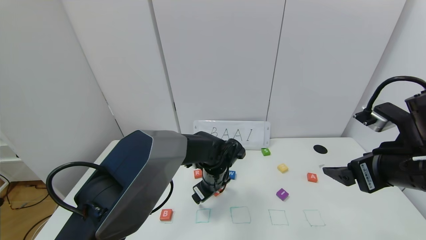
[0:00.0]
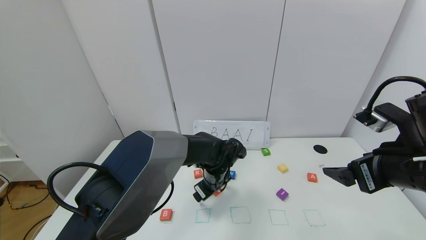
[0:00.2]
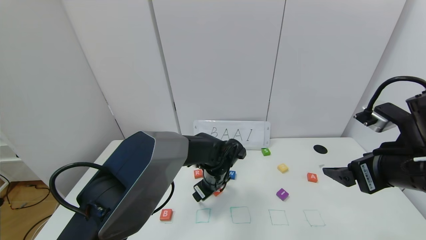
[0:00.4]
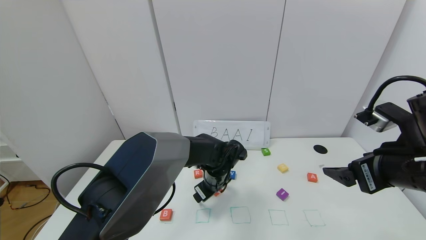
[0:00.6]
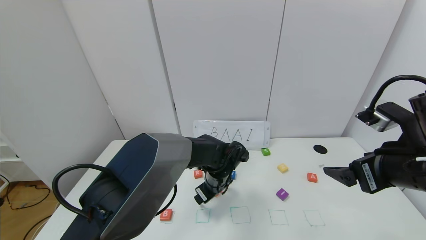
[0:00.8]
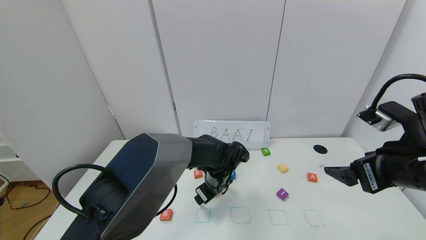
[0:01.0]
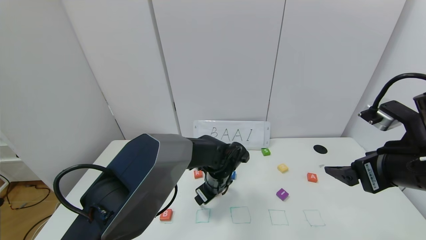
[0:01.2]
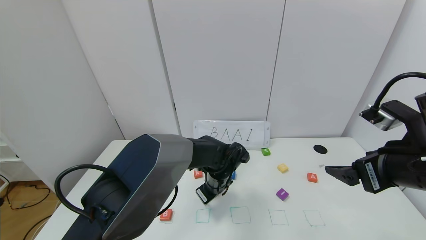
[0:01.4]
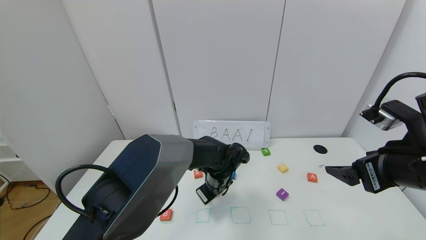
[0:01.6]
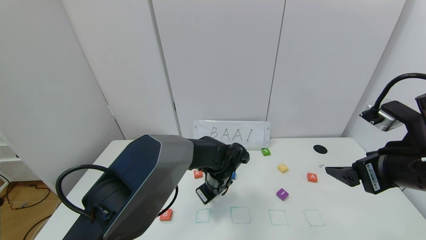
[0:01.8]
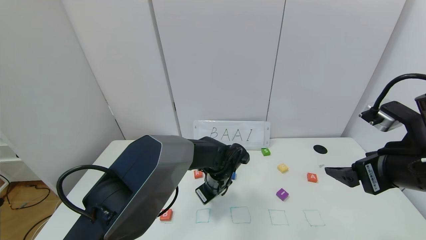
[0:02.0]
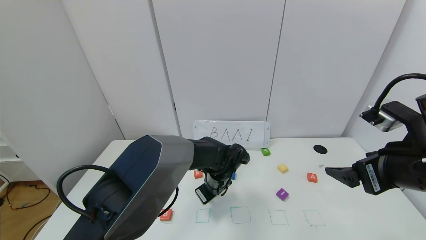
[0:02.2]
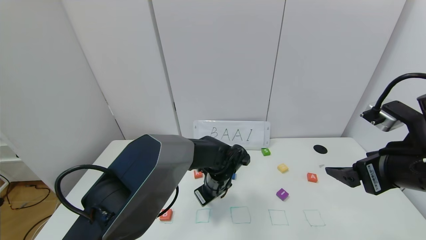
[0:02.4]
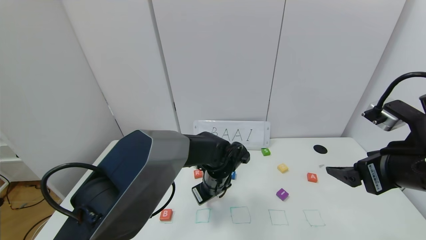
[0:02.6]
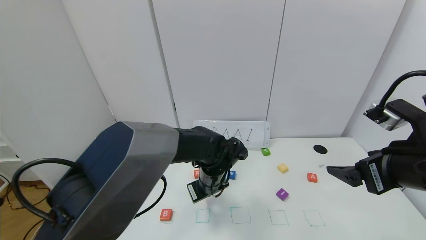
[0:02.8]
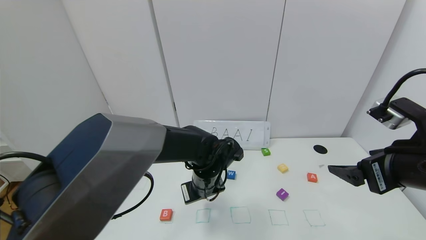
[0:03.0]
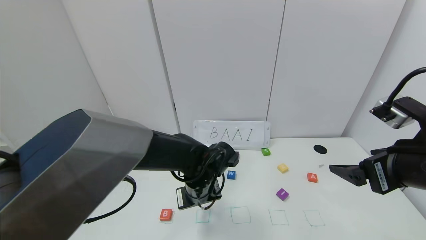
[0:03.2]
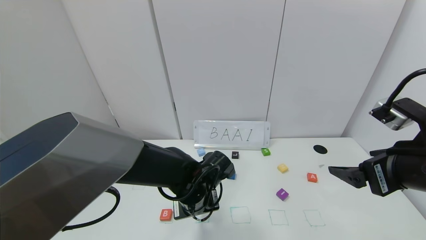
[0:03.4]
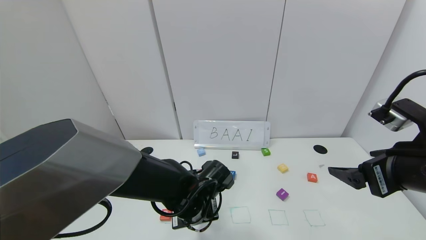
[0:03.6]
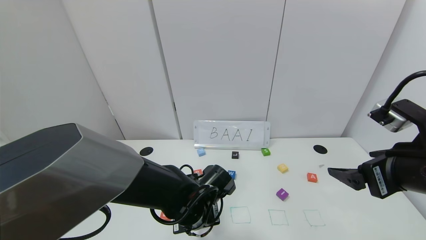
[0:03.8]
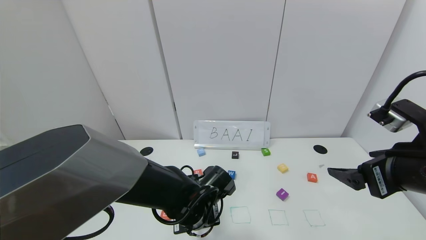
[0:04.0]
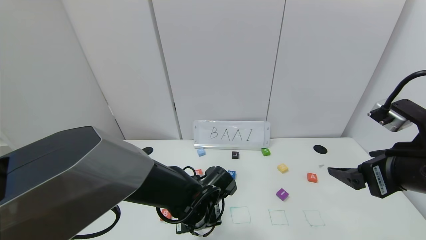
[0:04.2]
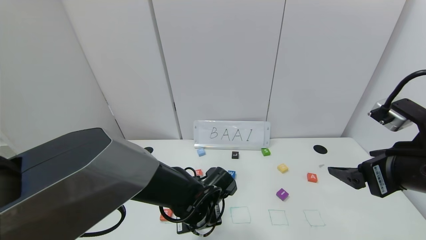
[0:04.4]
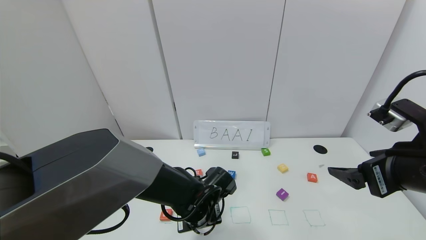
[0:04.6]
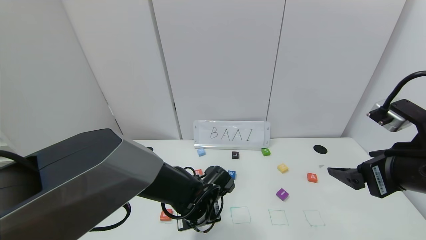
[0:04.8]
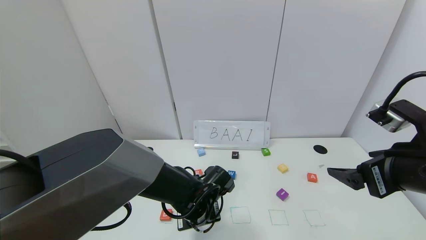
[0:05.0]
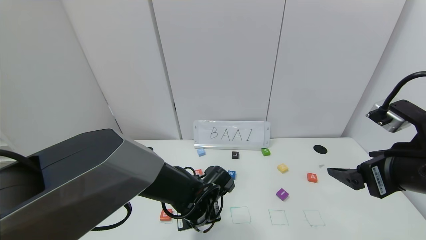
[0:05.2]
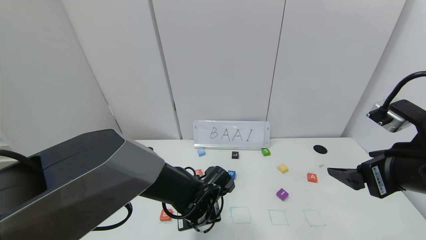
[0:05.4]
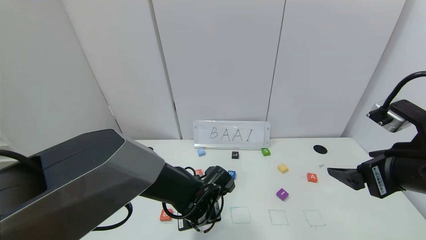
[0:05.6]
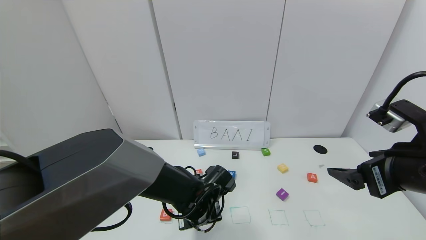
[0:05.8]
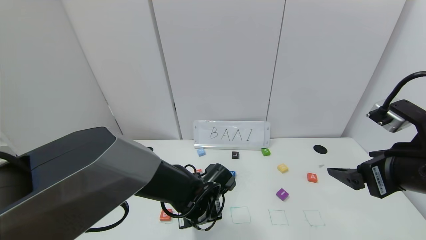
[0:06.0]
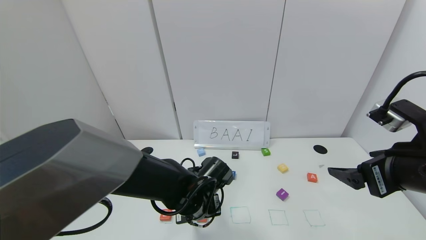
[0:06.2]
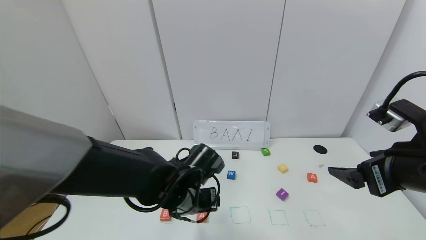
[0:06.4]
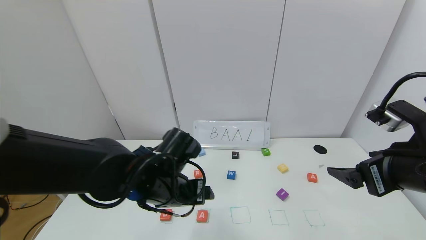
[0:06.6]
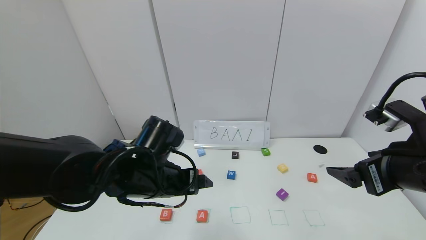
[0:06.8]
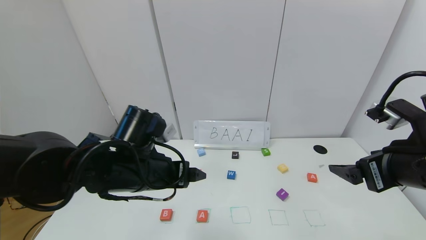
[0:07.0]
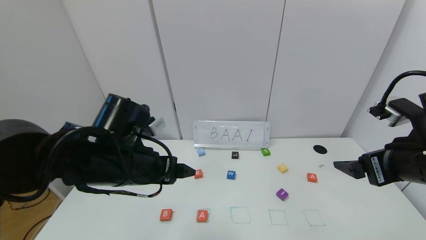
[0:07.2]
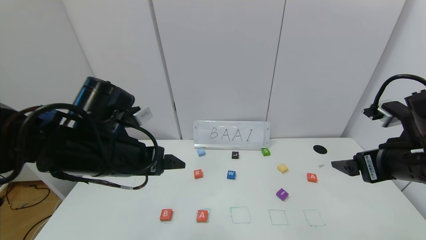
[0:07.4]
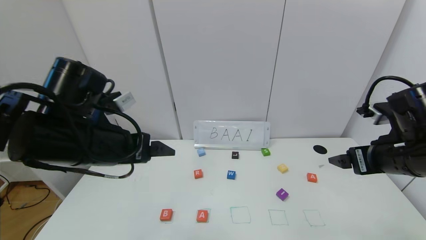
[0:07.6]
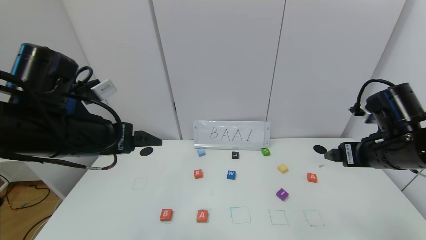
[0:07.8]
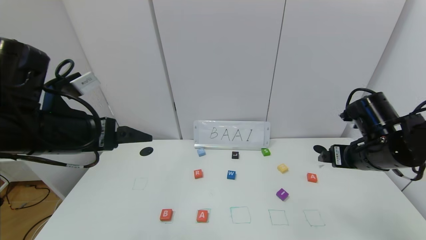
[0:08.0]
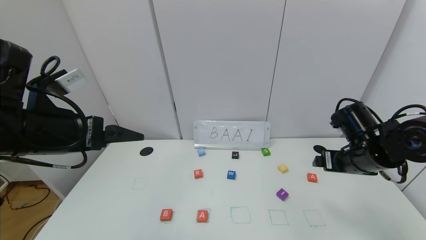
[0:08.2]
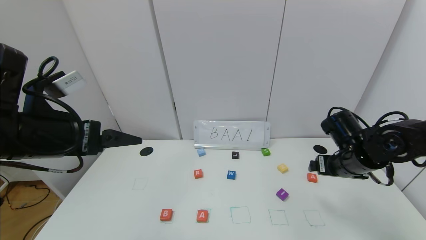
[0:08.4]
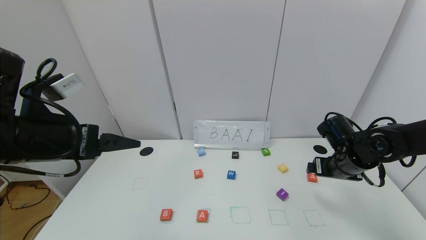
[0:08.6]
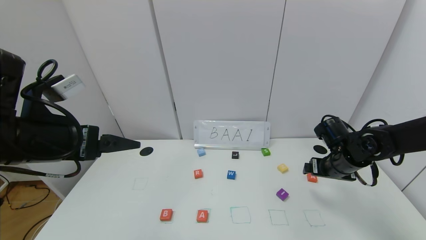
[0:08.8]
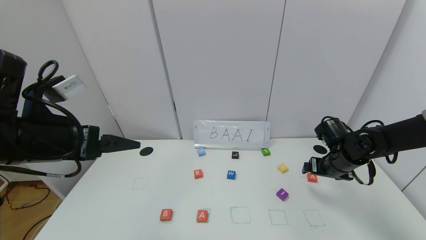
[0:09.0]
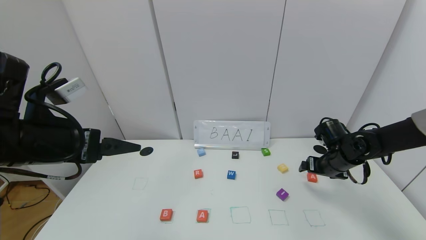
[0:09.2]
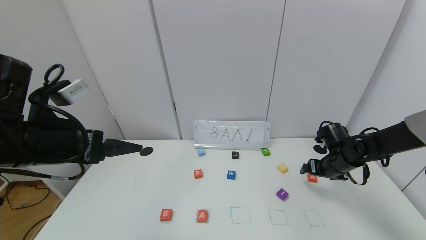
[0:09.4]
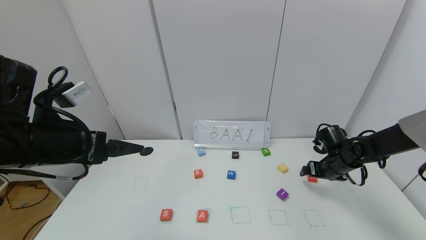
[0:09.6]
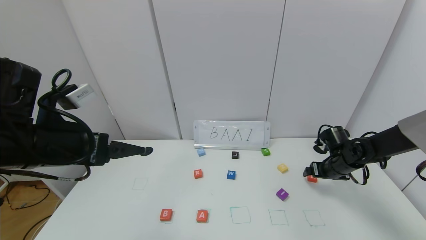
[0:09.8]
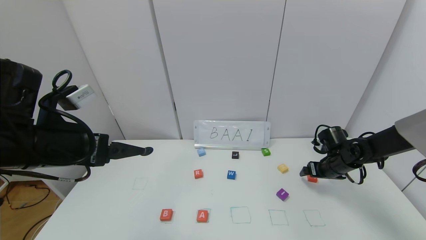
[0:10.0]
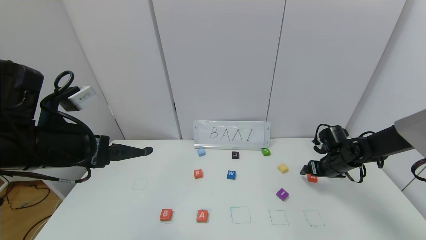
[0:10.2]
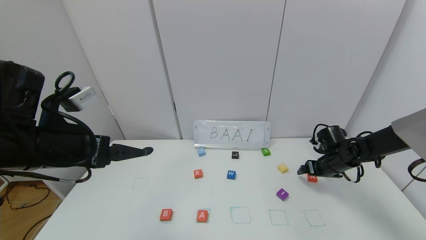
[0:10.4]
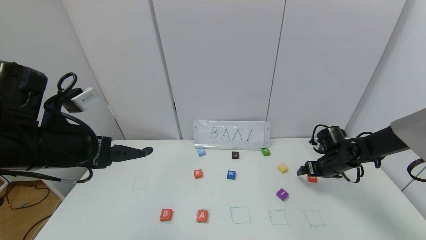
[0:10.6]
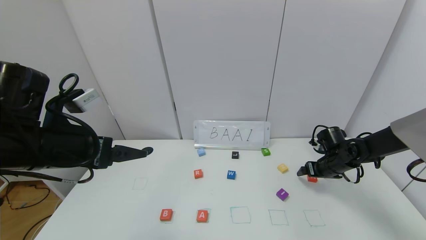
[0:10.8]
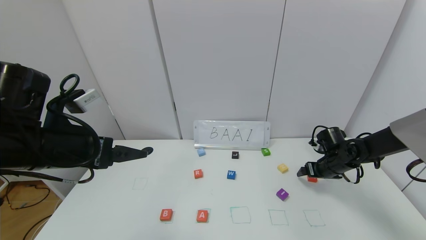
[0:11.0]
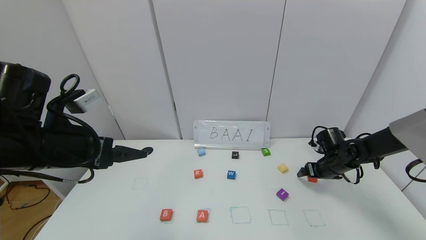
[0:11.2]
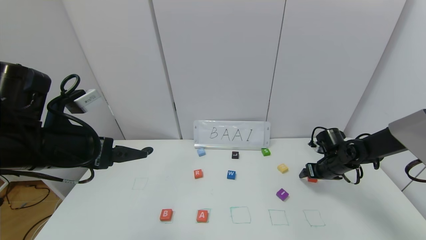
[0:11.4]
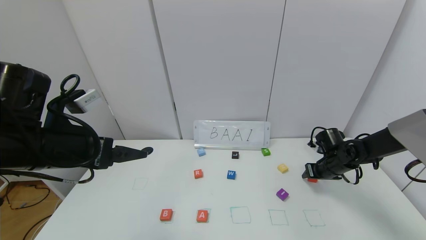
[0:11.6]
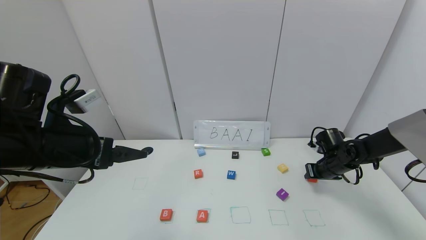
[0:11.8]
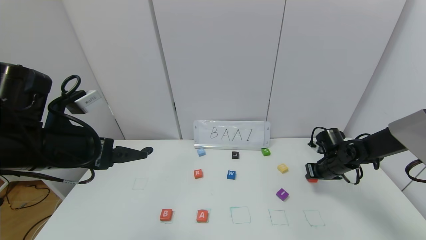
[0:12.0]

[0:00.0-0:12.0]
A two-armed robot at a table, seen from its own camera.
Task of the whole recording: use the gripper to find blocks with the letters b, a, a, and i on the table and arrange them into BAAI, then find r and N and turn the arranged baai into brian.
Step, 0:00.0 to 0:06.0: Place the first block A in the second location.
0:00.0 to 0:01.6: The left gripper closes up.
0:01.6 to 0:03.0: The left gripper changes place by roughly 5 cm.
0:03.0 to 0:04.4: The left gripper goes roughly 5 cm backward and downward.
0:04.4 to 0:06.0: The left gripper opens.
0:06.0 to 0:07.6: The right gripper heads forward, covering about 5 cm, while the left gripper moves upward and to the left, roughly 25 cm, and opens up.
0:07.6 to 0:09.0: The right gripper is displaced forward and downward by roughly 20 cm, while the left gripper travels to the left by about 5 cm.
0:09.0 to 0:10.4: The right gripper heads downward, covering some 5 cm.
0:10.4 to 0:12.0: The right gripper closes.

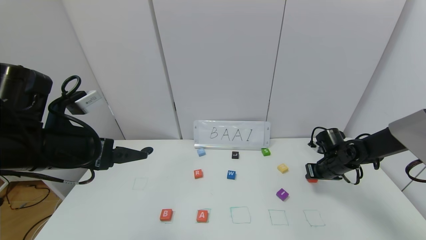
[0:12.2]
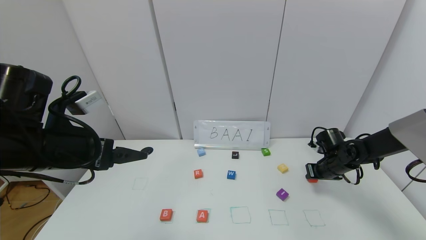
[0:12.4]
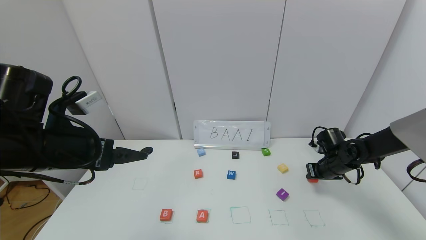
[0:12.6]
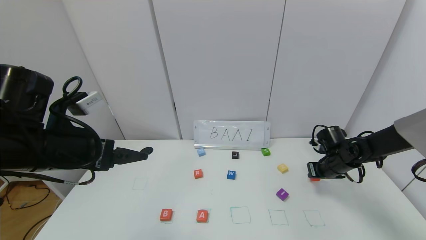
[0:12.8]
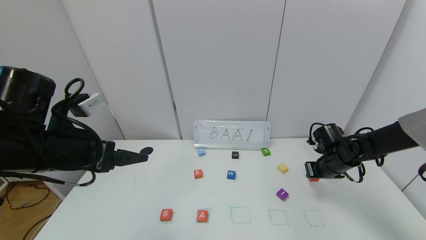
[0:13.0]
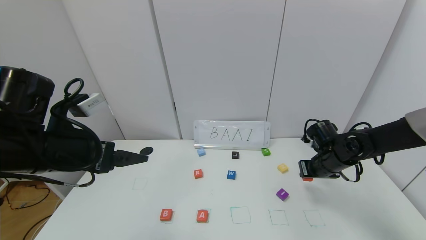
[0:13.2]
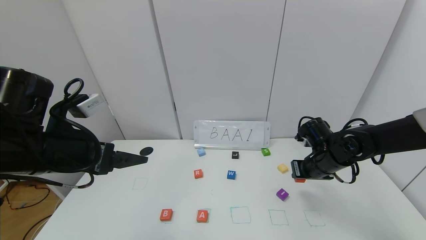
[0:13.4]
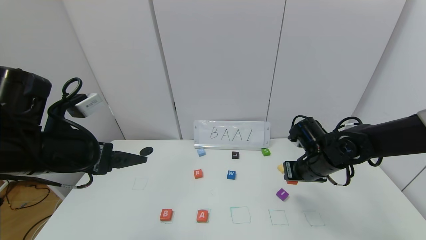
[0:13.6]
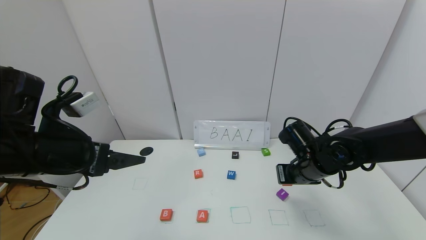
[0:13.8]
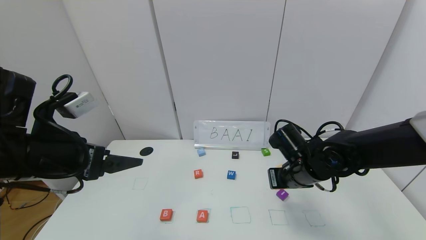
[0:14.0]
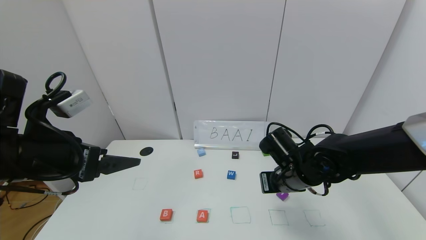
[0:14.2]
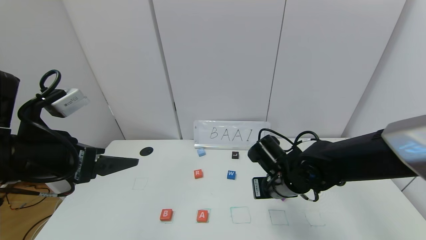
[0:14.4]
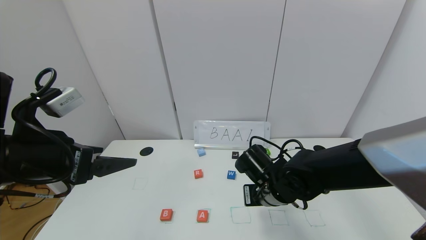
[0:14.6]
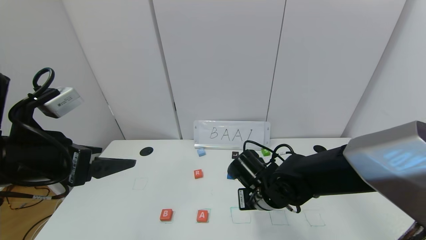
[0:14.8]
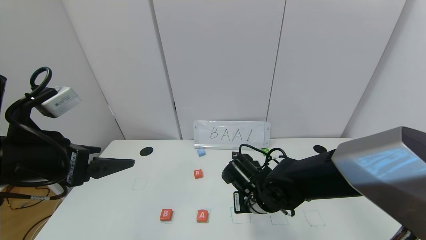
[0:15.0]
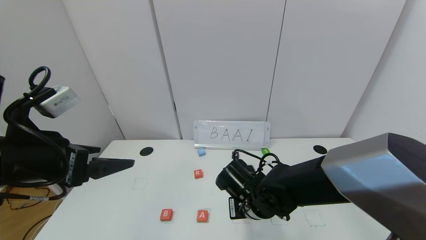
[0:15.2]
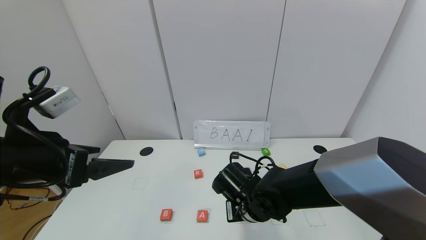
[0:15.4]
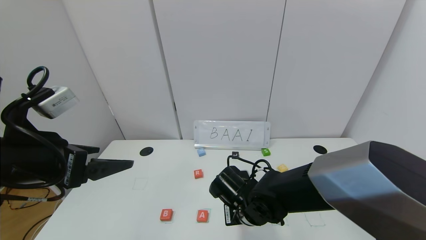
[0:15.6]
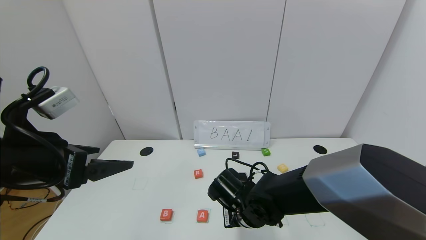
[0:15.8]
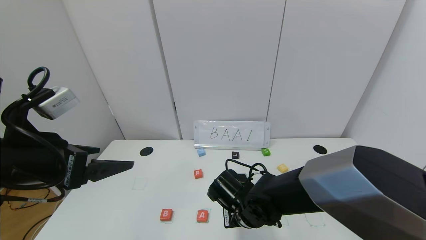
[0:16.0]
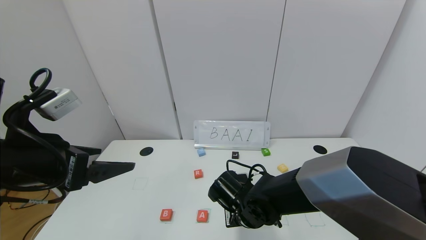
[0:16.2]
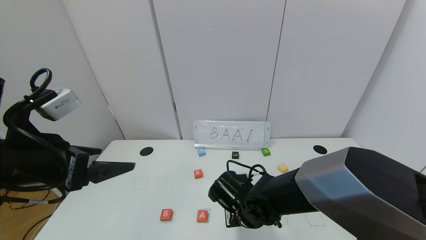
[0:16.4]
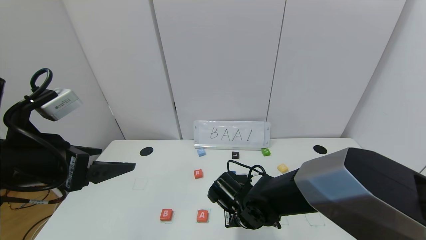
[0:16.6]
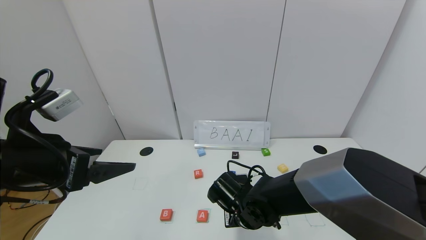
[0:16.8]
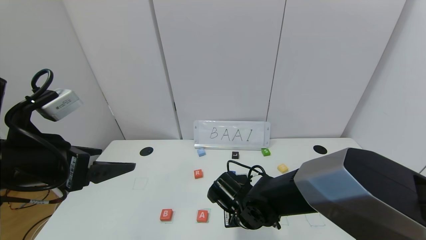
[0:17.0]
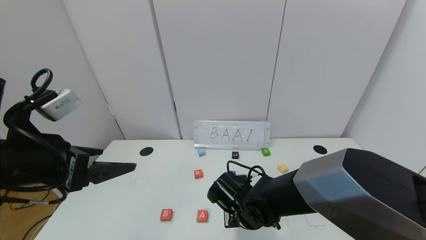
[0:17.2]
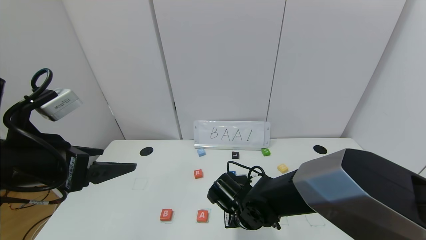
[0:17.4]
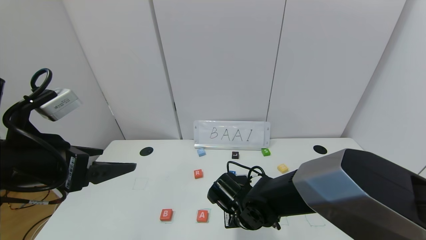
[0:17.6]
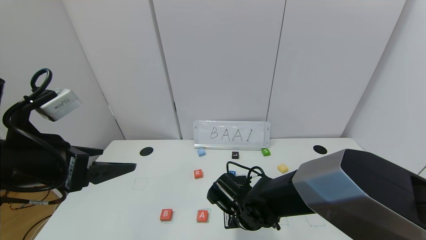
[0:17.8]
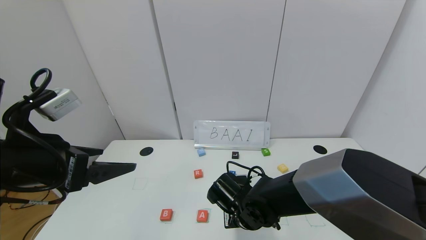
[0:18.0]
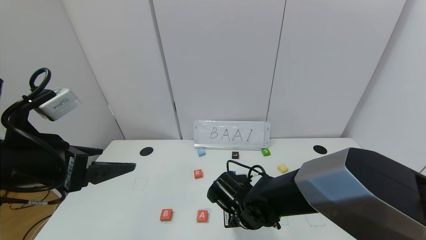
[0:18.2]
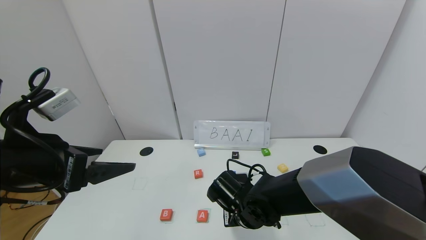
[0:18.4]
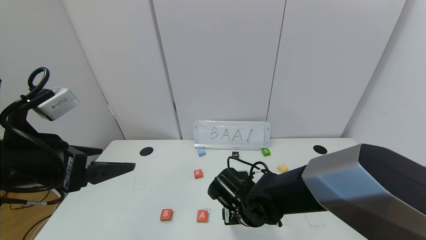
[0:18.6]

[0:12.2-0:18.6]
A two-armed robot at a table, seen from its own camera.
Task of the whole recording: use the gripper to find blocks with the letters b, a, a, and i on the table and arrange them into BAAI, then find r and N and turn the arranged baai into brian.
Step, 0:12.2 to 0:18.4: Place the second block A in the third location.
0:12.2 to 0:13.8: The right gripper is displaced to the left, backward and upward by roughly 20 cm.
0:13.8 to 0:15.4: The right gripper moves to the left and downward, roughly 15 cm.
0:15.4 to 0:17.0: The grippers move only a little.
0:17.0 to 0:18.6: The right gripper opens its fingers.
